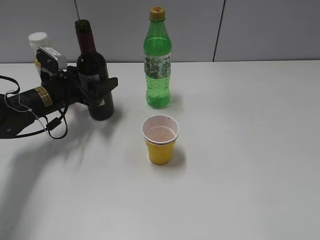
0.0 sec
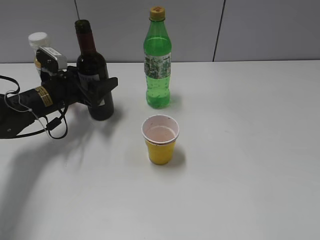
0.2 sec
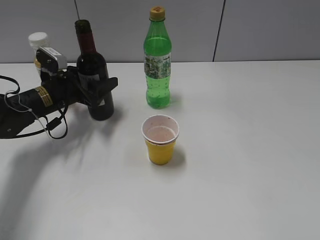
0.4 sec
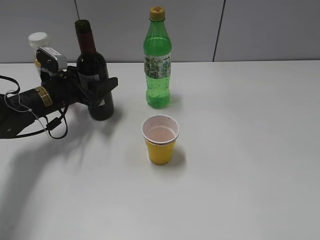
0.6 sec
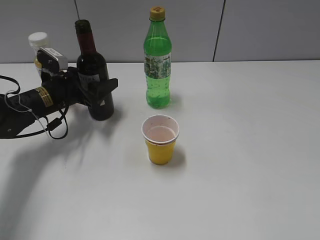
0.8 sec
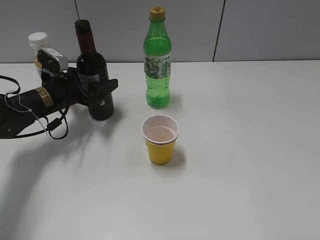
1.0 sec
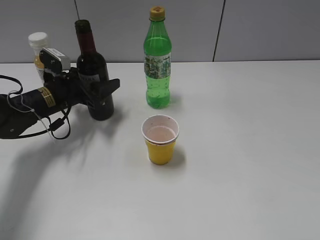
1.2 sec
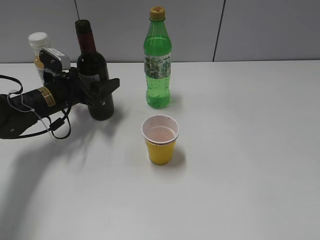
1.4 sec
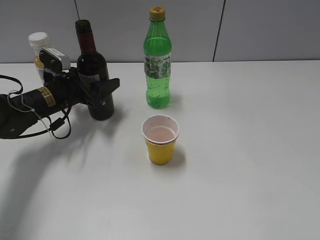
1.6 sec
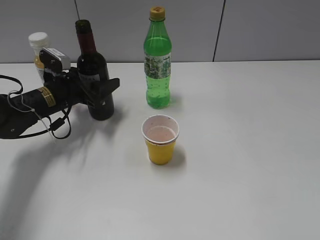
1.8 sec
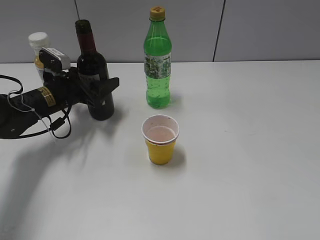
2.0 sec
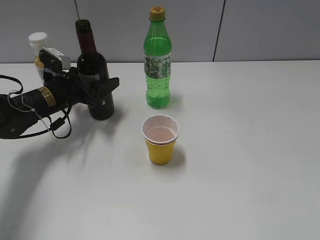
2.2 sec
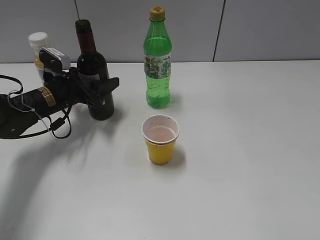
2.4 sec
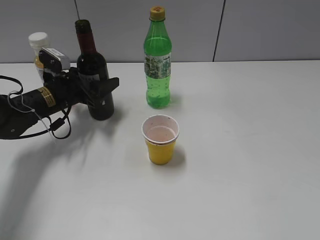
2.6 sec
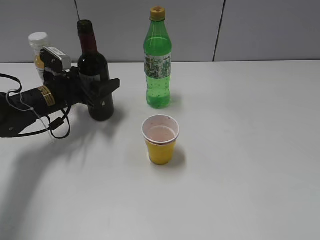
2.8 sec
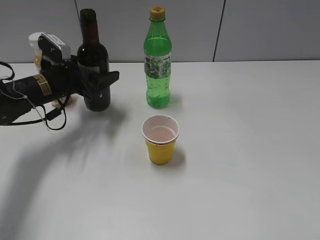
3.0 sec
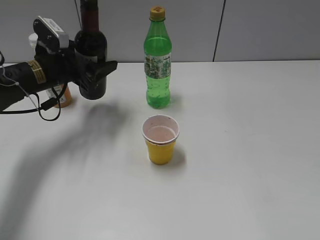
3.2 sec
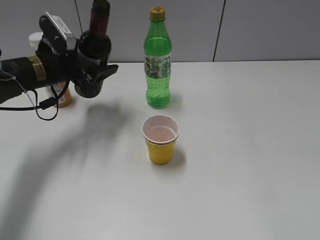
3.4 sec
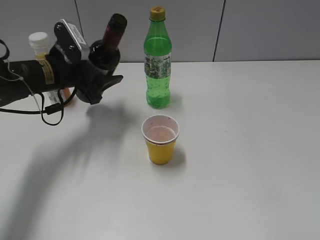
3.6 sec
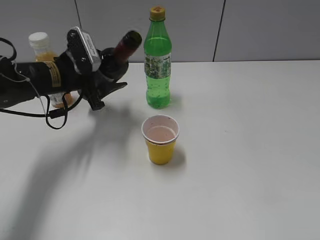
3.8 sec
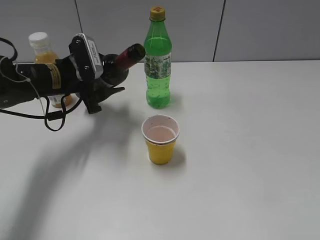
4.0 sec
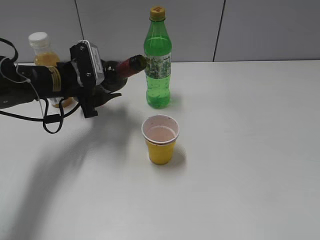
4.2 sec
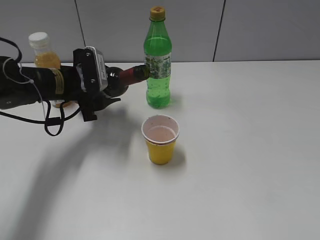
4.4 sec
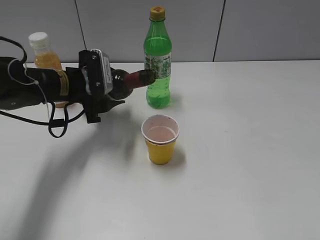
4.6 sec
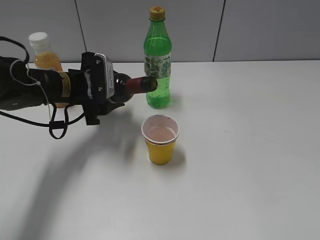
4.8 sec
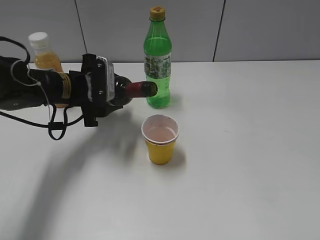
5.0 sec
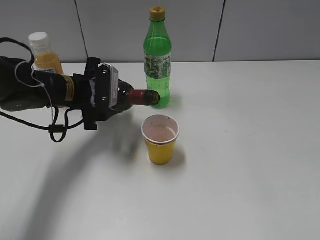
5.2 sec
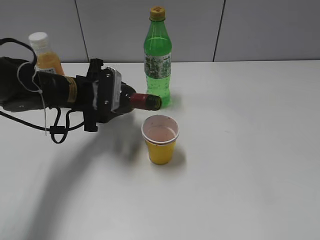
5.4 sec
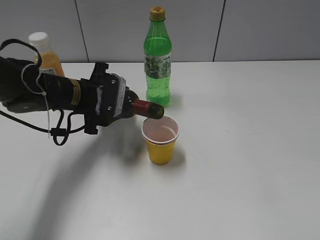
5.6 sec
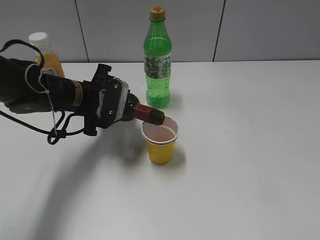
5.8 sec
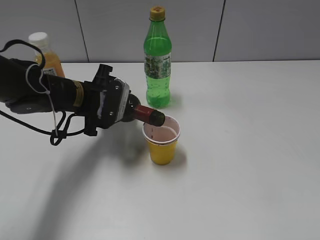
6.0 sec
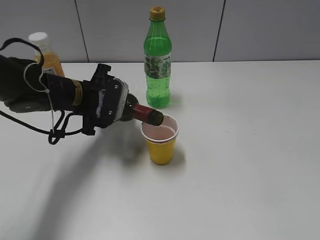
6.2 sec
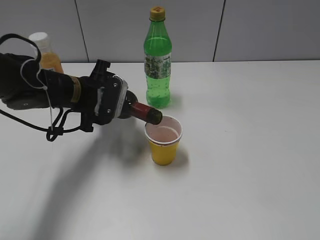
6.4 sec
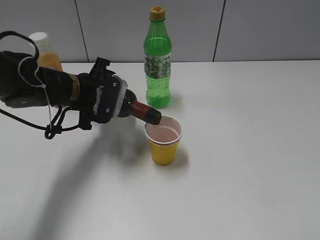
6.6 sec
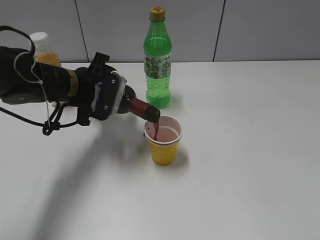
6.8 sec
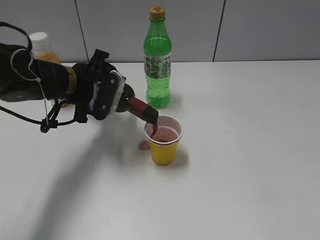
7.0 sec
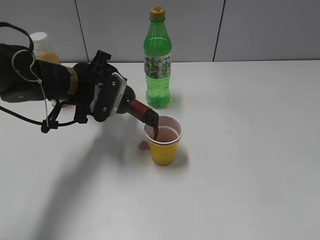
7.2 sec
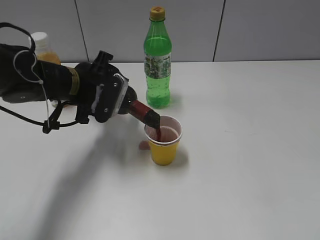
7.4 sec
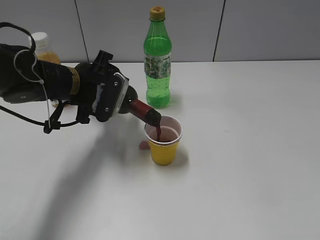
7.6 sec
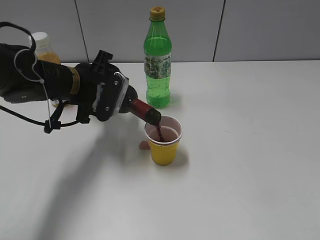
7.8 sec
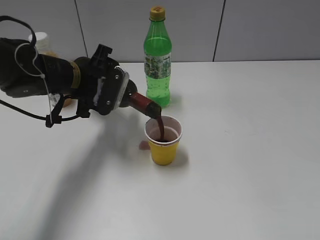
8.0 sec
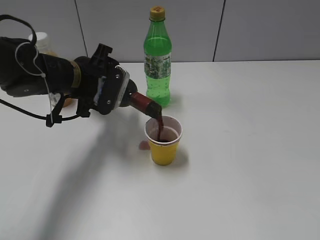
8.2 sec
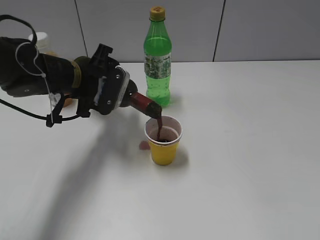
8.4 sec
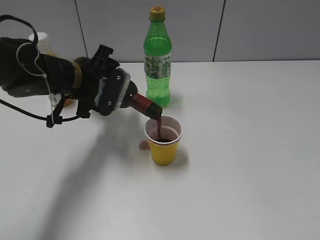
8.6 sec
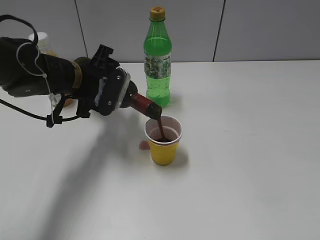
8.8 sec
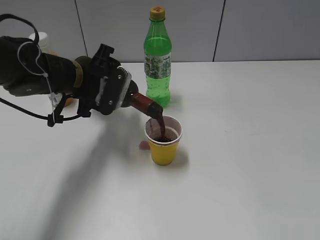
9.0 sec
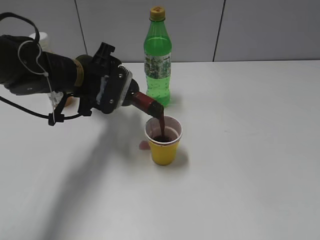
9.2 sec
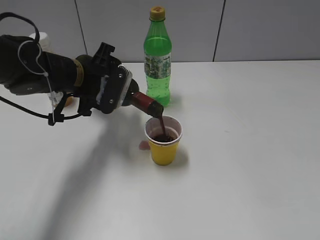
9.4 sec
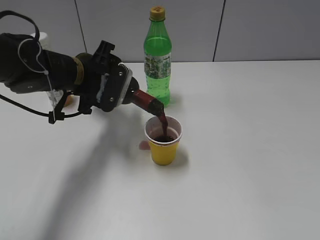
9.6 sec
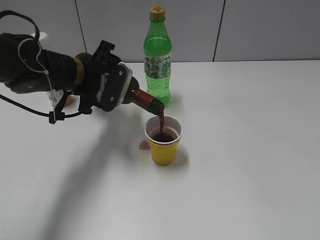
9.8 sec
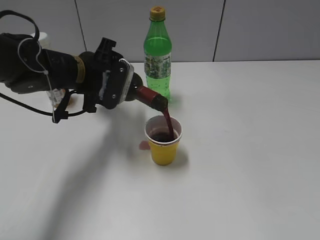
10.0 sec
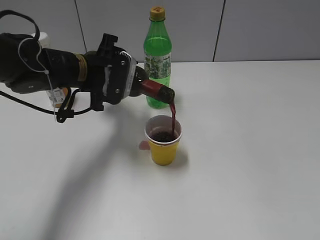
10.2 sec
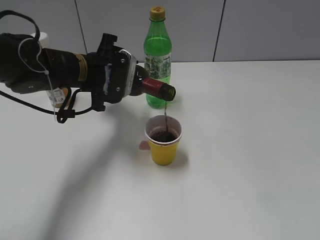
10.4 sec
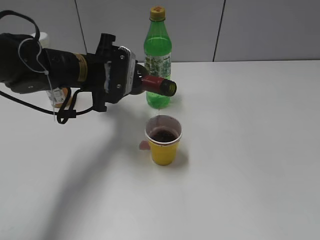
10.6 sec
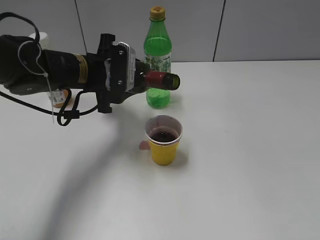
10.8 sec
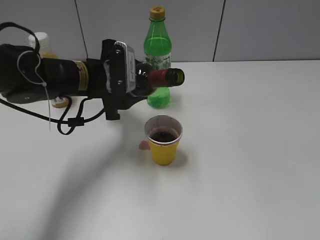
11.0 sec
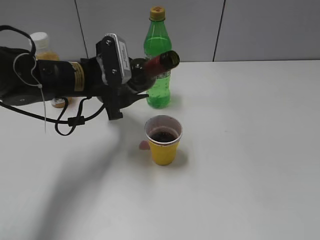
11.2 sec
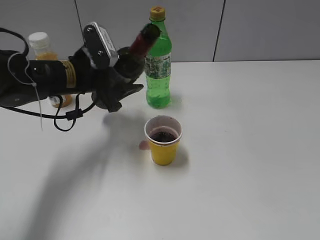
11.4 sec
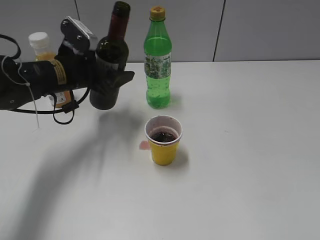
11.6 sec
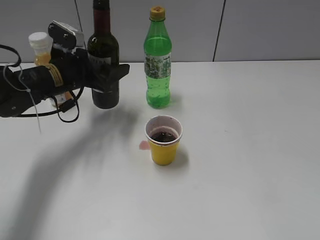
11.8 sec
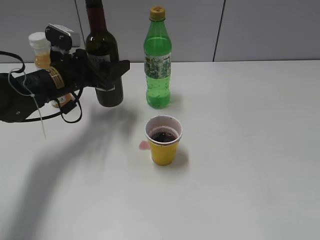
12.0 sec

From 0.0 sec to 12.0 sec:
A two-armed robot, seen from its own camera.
Step, from 0.0 sec to 2.4 sec: Grasp the bottle with red wine with left gripper.
Step, from 2.8 sec to 10.8 sec: Pour the red wine from bottle to cup with left gripper.
From 0.0 sec to 1.6 sec: Neither gripper changes place.
From 1.6 sec to 3.0 sec: The grippers make only small movements.
From 6.0 sec to 7.6 sec: The grippers stay close to where they were, moving slightly.
From 7.6 sec to 9.0 sec: Both grippers stay about where they are.
From 9.0 sec to 10.4 sec: The grippers stay close to where they were, moving slightly.
From 10.4 sec to 12.0 sec: The left gripper is displaced to the left by approximately 5 cm.

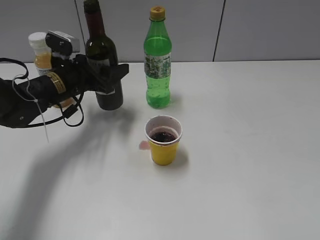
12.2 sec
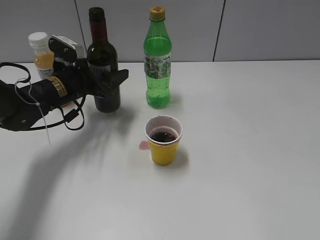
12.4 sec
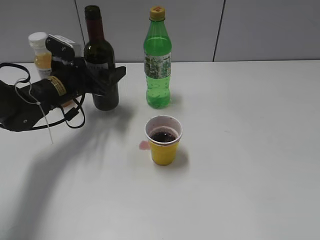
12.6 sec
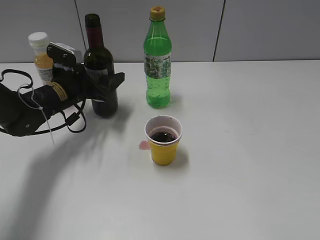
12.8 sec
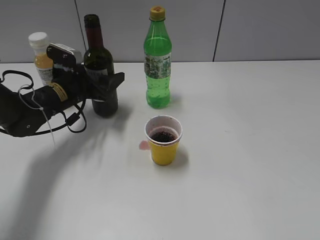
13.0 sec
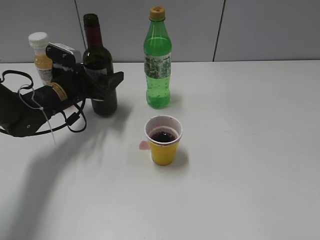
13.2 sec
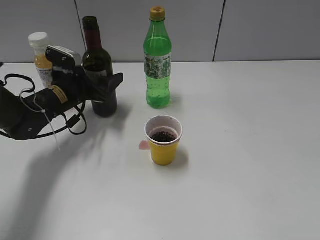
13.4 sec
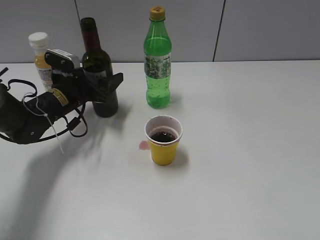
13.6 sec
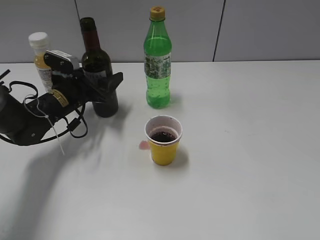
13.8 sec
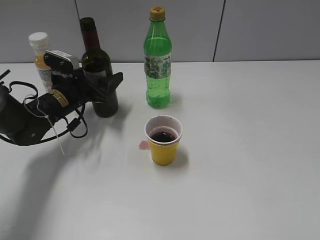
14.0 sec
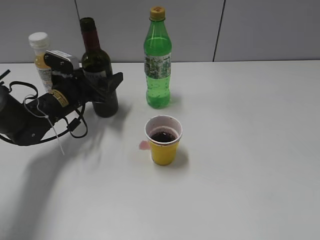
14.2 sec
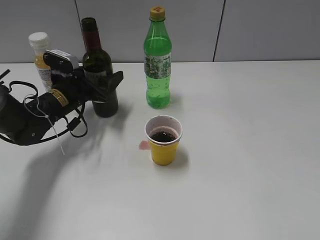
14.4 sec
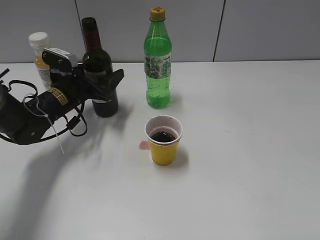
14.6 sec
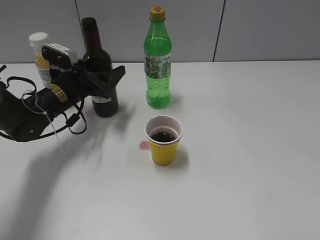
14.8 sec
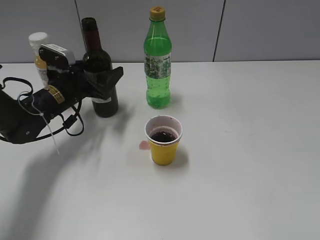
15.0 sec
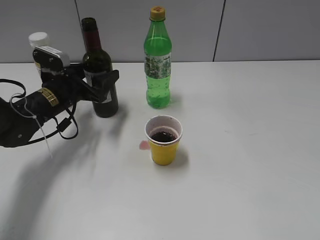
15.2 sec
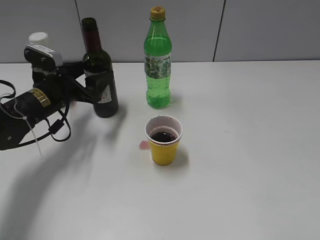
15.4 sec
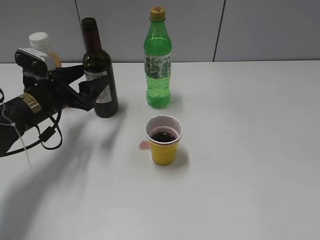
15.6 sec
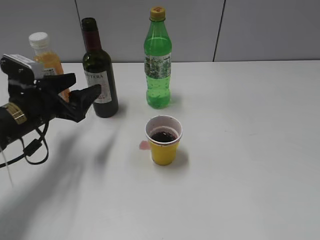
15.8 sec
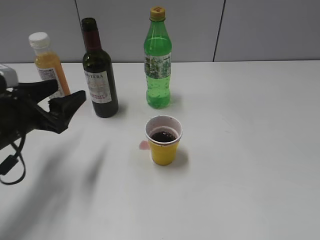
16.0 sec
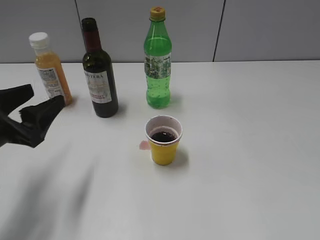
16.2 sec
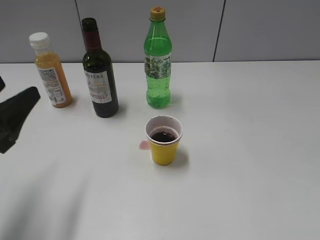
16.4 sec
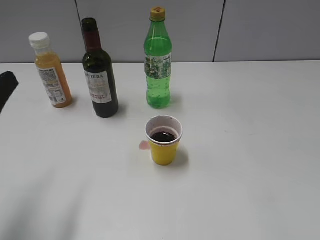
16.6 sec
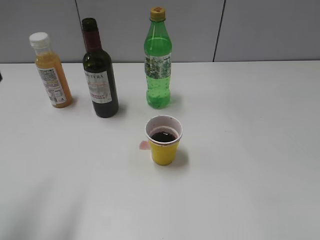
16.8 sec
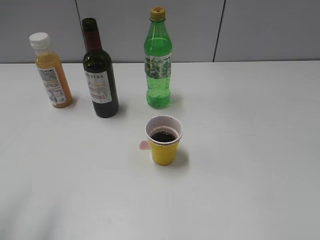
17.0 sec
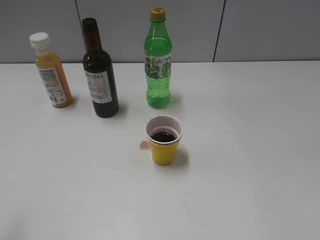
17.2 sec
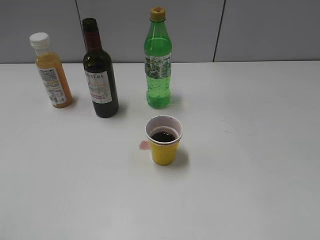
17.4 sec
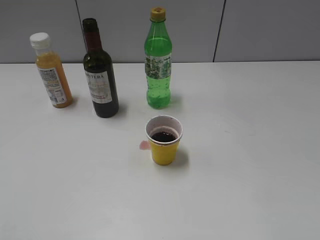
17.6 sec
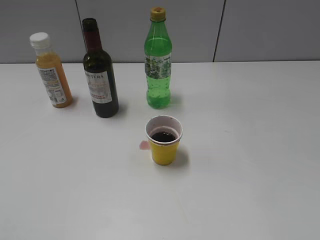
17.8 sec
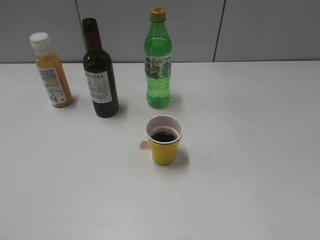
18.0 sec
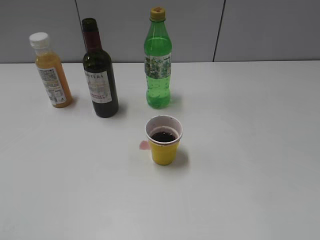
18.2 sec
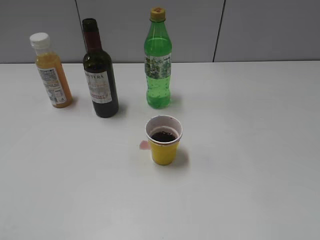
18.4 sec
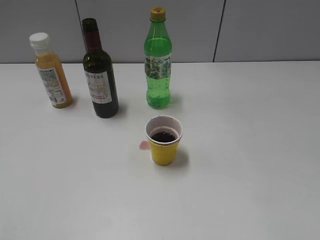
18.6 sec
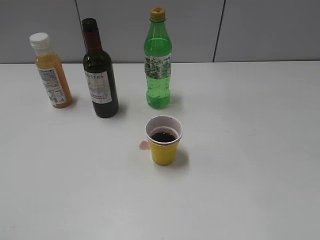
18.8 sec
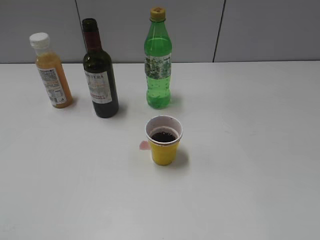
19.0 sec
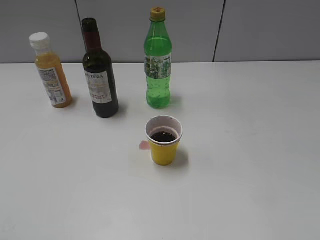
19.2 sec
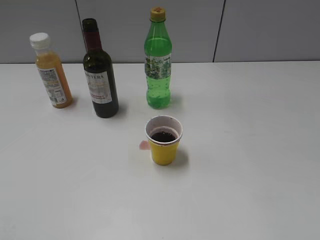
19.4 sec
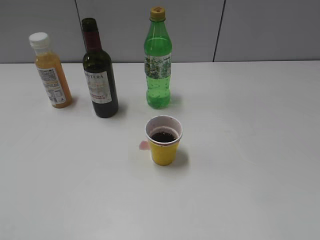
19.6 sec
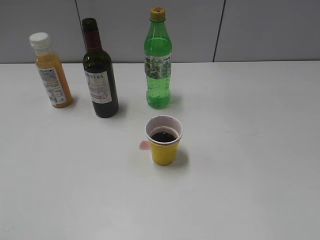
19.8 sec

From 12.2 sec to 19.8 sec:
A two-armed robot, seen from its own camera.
Step, from 12.2 sec to 15.2 sec: Place the red wine bottle on the table with left gripper.
From 12.2 sec to 15.2 sec: The grippers move only a little.
From 15.2 sec to 16.8 sec: The left gripper shifts roughly 30 cm backward and upward.

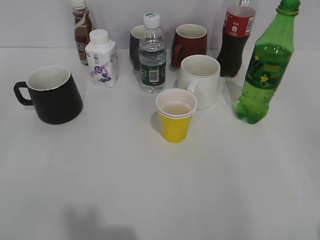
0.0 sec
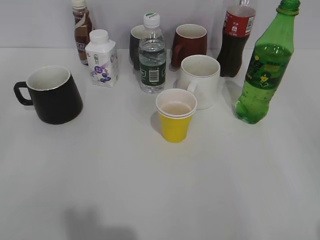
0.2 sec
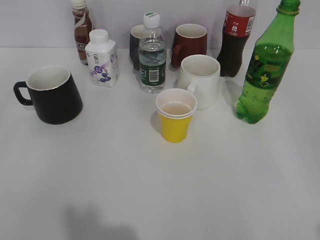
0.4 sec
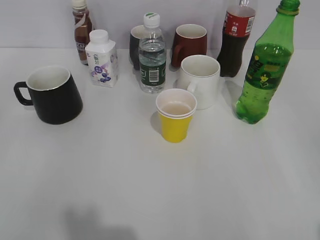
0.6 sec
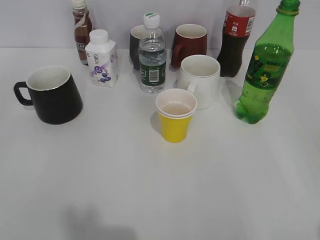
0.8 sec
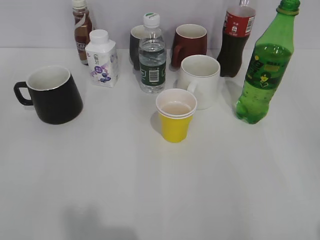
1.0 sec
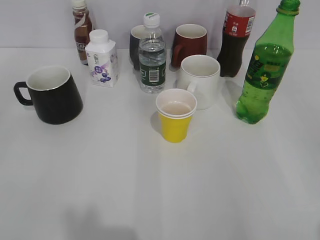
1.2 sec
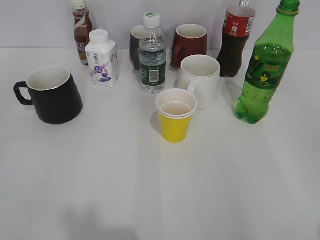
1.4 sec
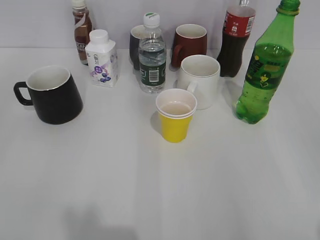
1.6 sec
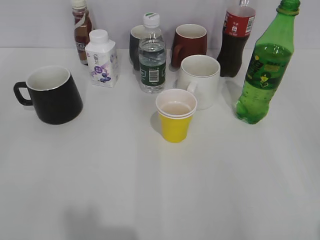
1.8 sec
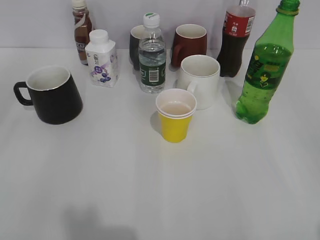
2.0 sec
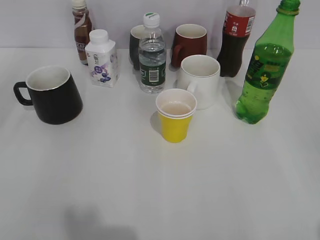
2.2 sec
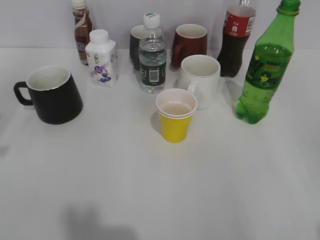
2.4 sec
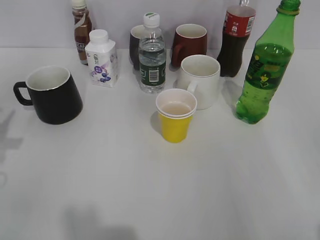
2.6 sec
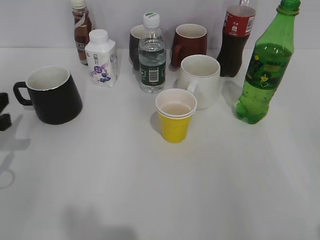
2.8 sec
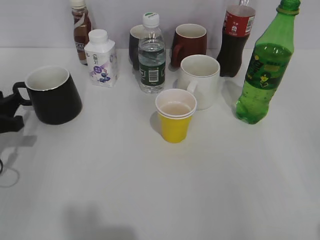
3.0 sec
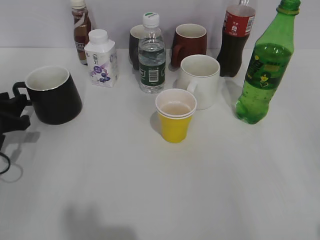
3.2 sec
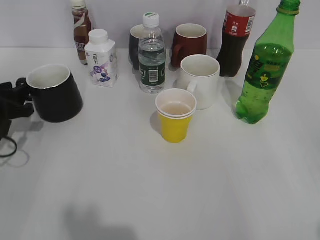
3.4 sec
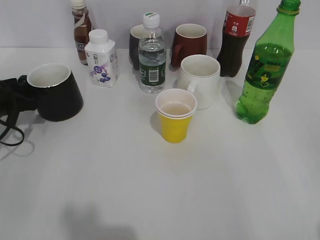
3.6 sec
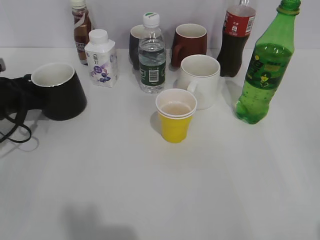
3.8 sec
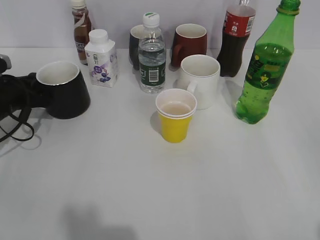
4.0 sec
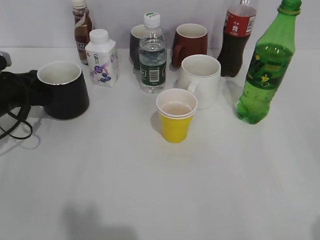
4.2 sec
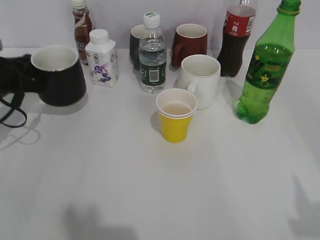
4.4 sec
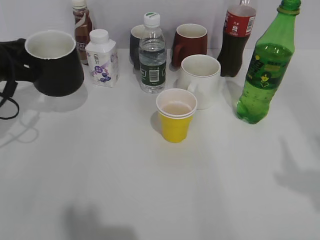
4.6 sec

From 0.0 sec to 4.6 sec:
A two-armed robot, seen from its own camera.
Step, from 1.8 sec to 3.8 sec: Grasp the black cup with left gripper.
From 1.6 sec to 3.0 sec: The left gripper travels forward and downward by some 30 cm.
From 3.0 sec to 4.6 sec: The left gripper moves forward, some 10 cm, and closes. Meanwhile the right gripper heads upward and forward, covering about 10 cm.
